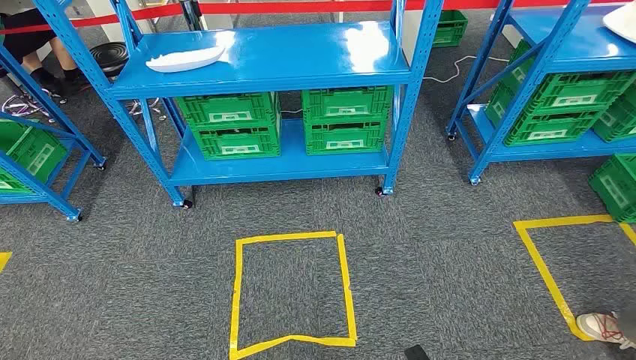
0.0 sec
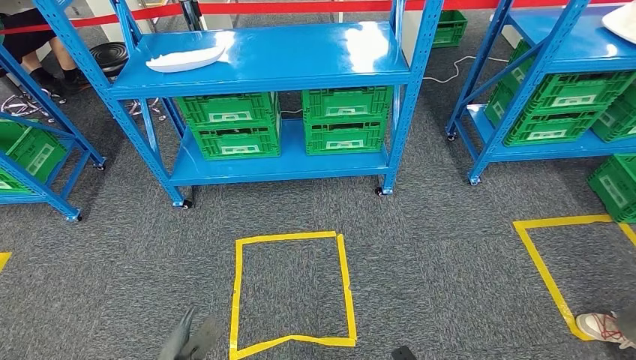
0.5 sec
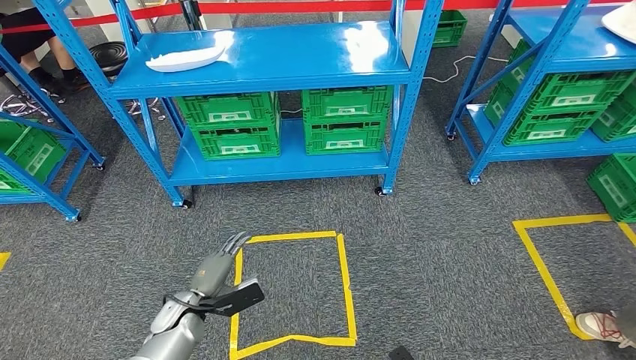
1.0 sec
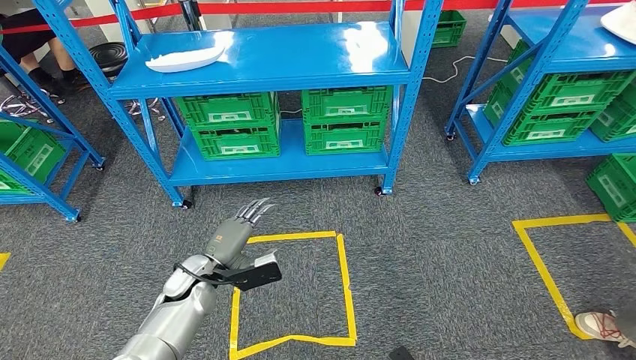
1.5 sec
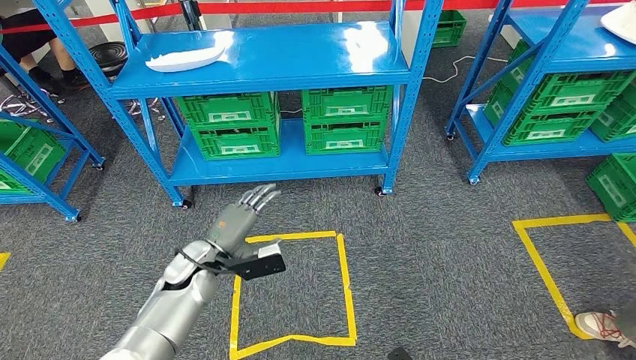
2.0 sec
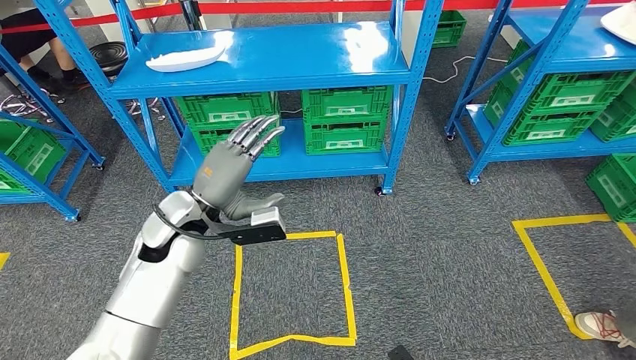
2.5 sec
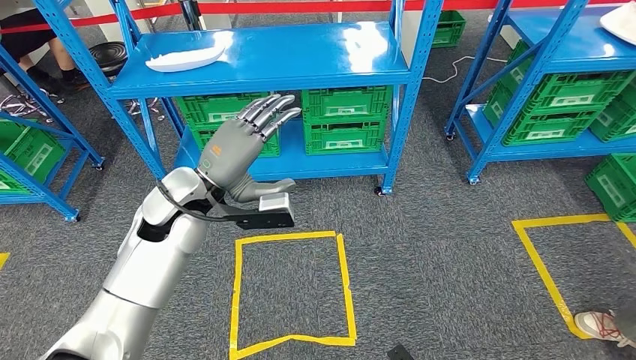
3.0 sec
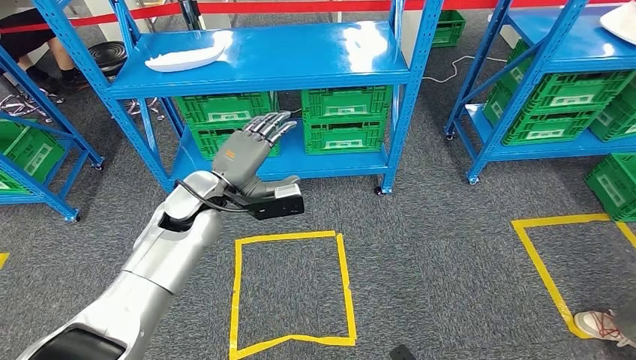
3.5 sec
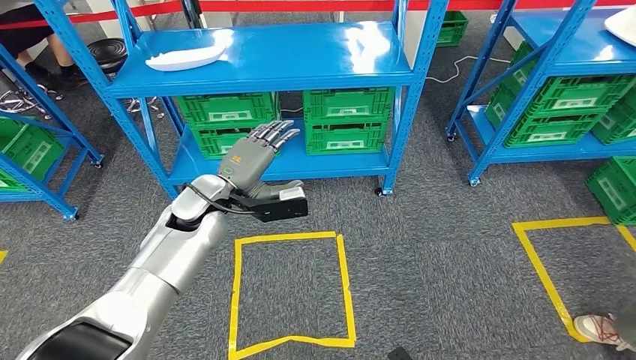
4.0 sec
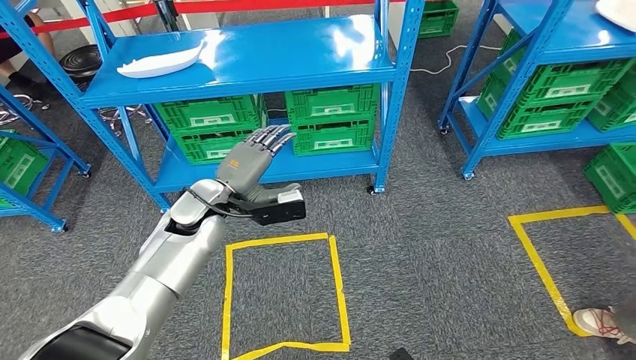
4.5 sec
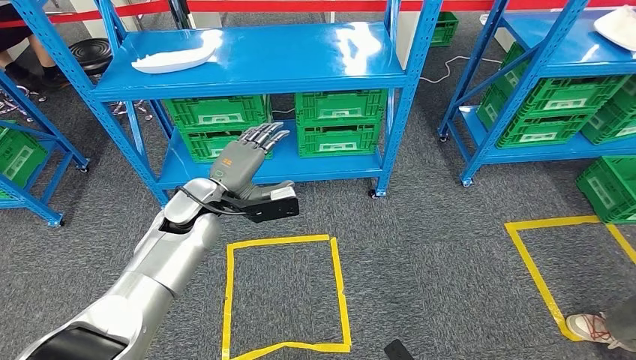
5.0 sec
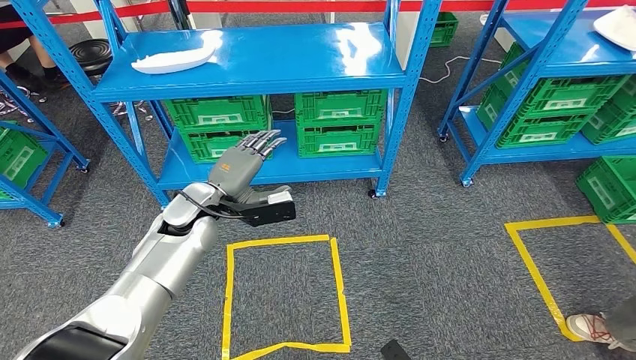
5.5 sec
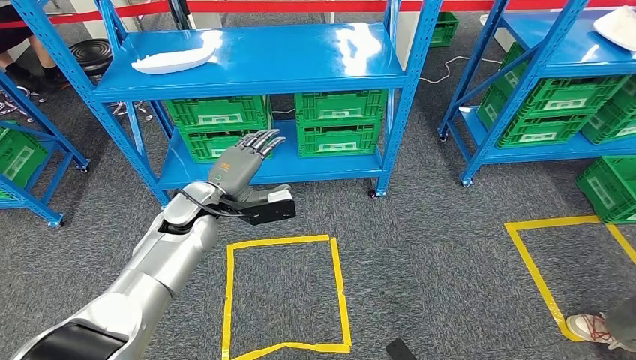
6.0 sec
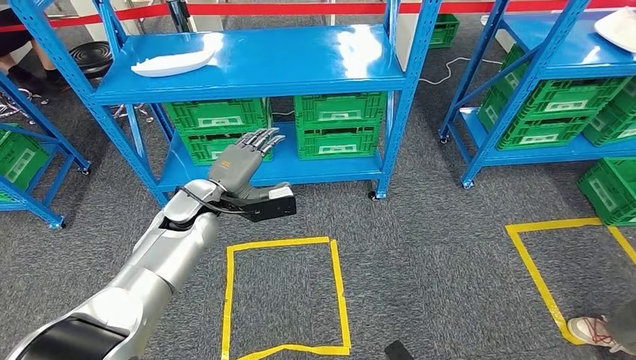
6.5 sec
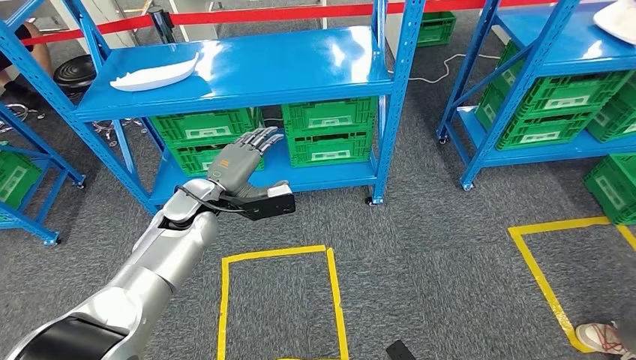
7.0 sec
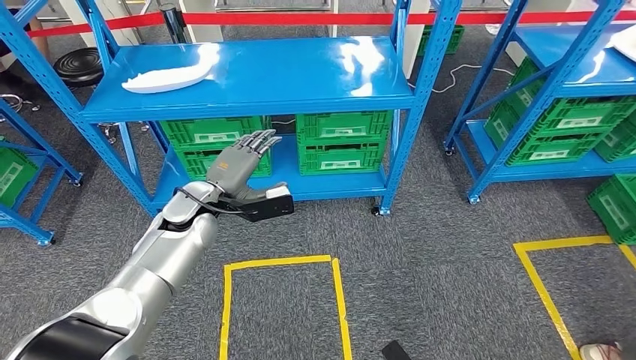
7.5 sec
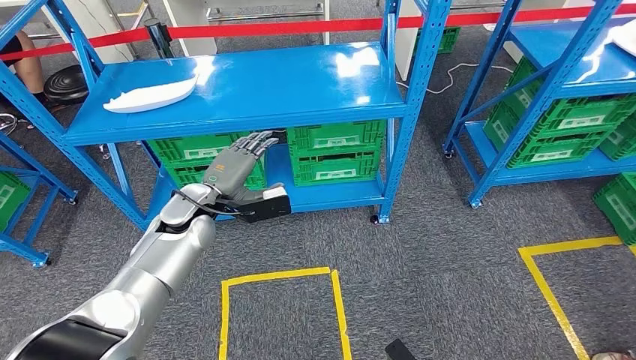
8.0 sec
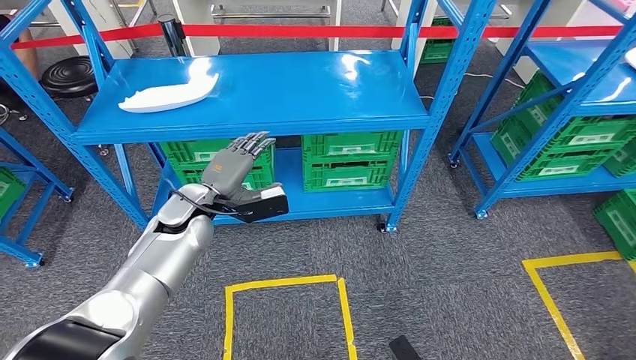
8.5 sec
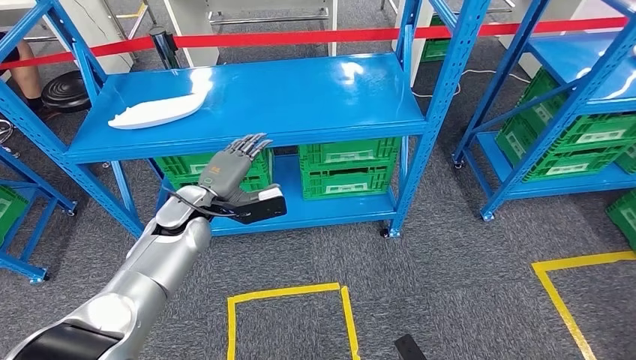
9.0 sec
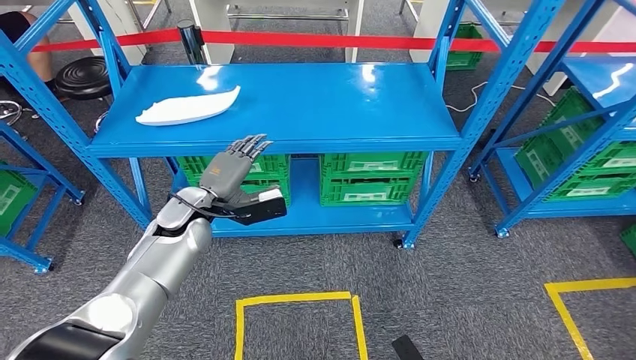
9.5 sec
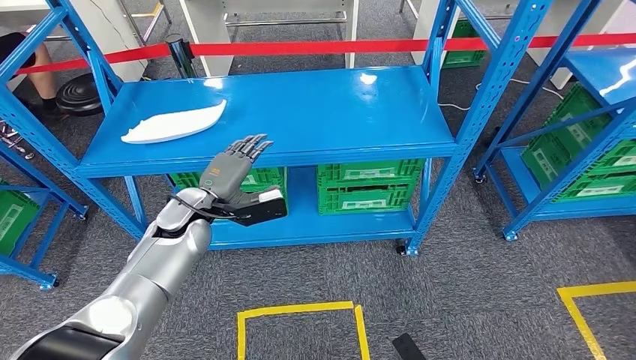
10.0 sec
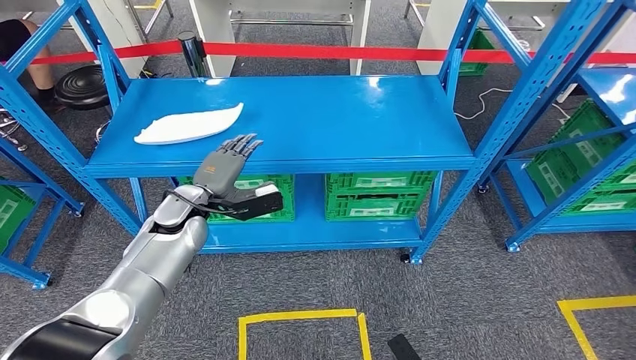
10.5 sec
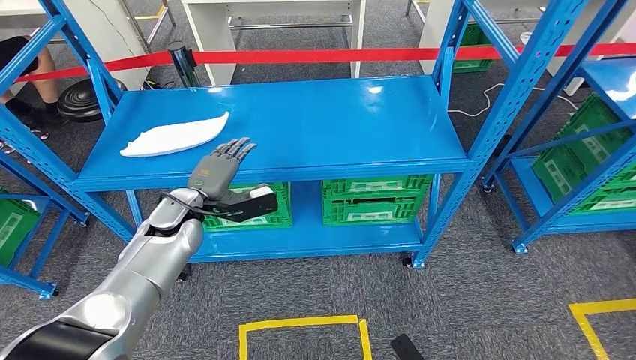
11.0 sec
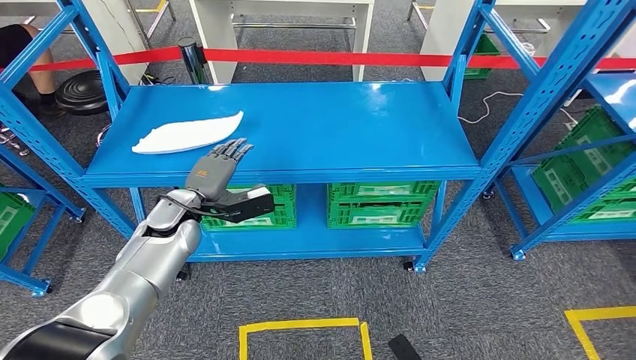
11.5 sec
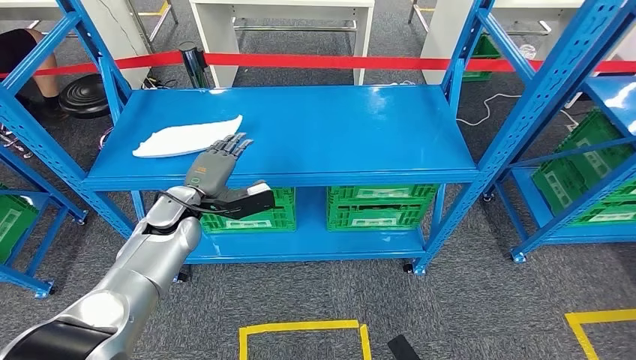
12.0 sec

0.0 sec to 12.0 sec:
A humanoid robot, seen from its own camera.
2.0 sec to 4.0 sec: The left hand goes some 10 cm upward.

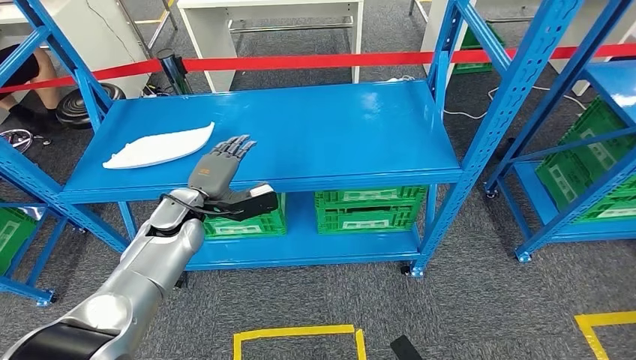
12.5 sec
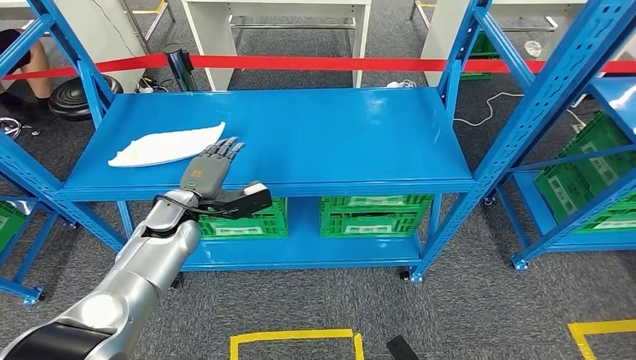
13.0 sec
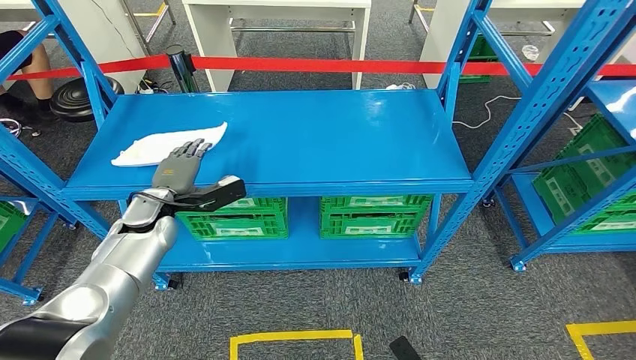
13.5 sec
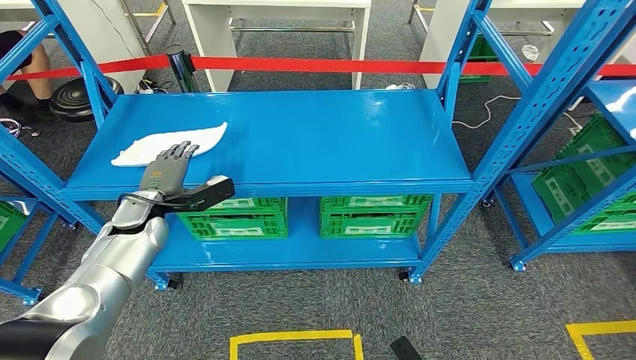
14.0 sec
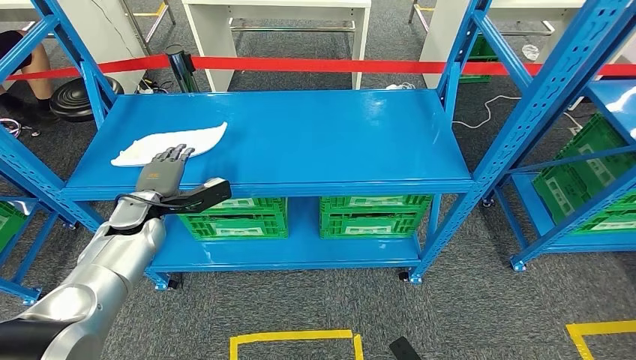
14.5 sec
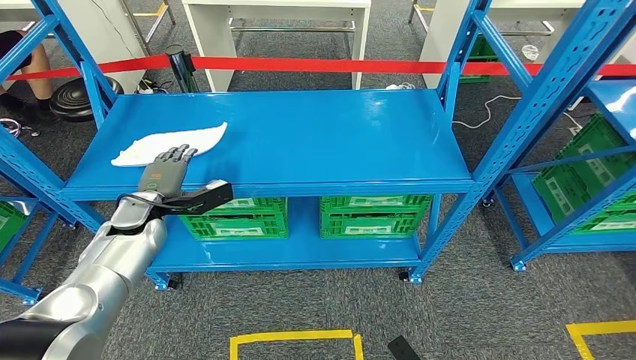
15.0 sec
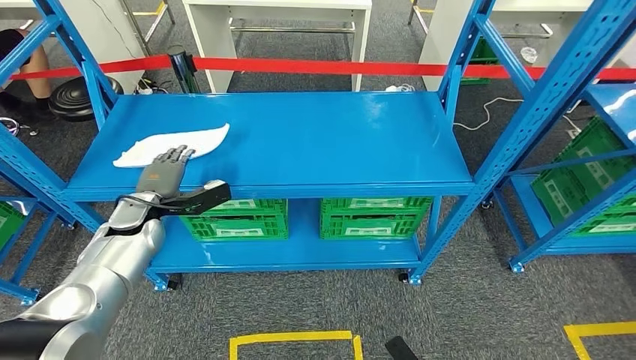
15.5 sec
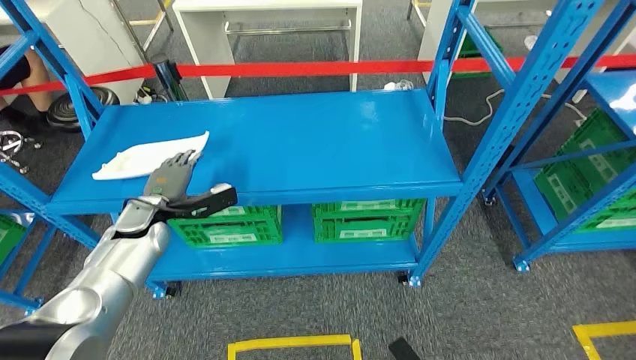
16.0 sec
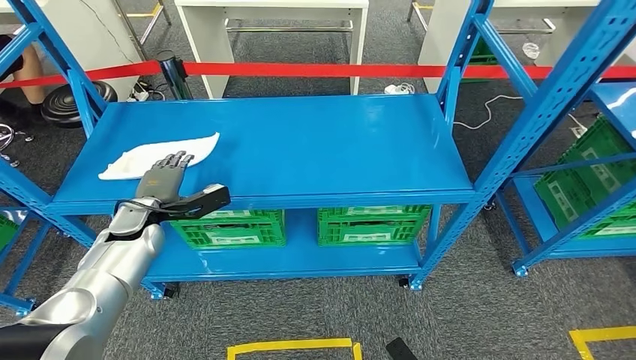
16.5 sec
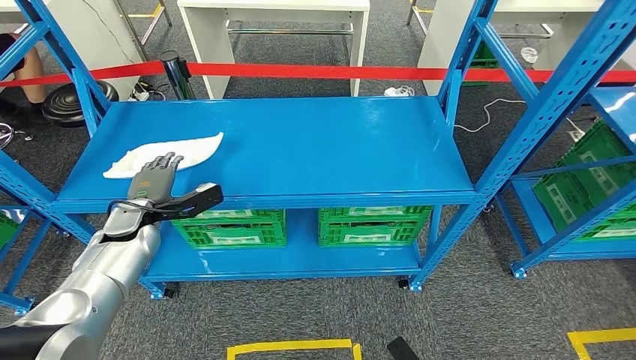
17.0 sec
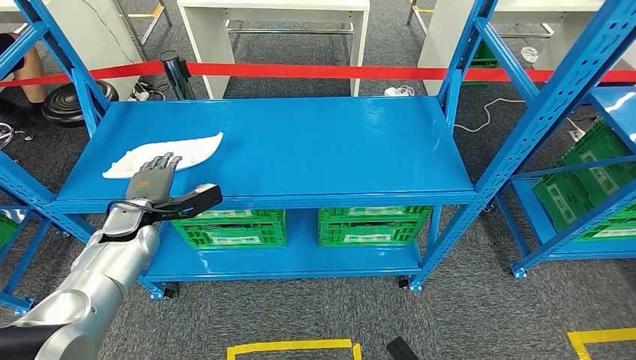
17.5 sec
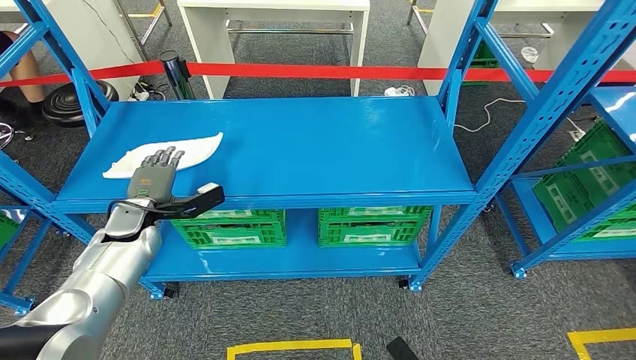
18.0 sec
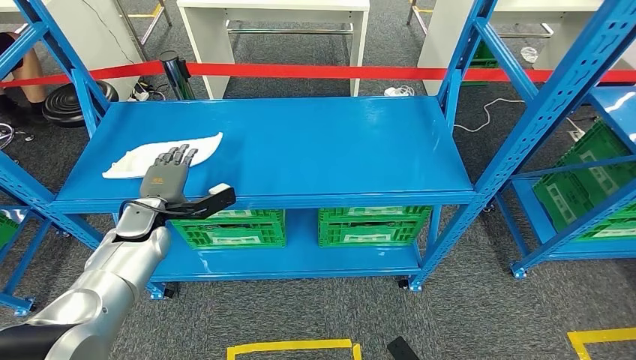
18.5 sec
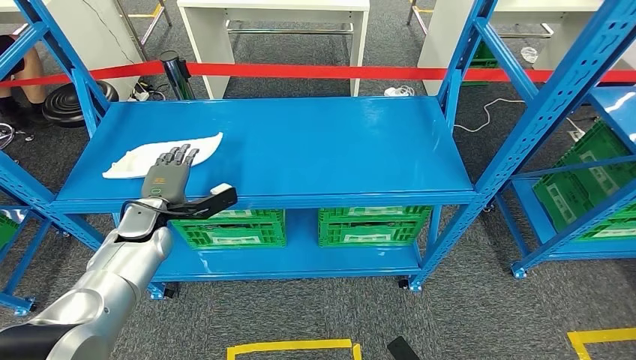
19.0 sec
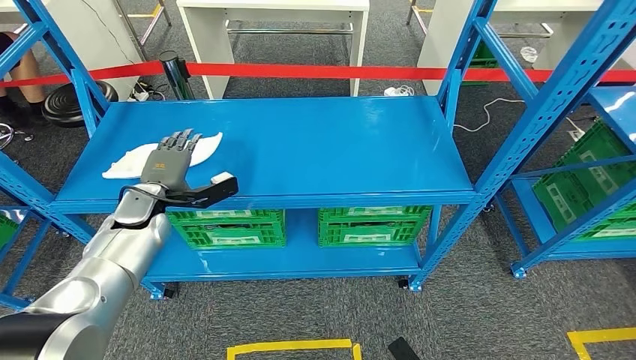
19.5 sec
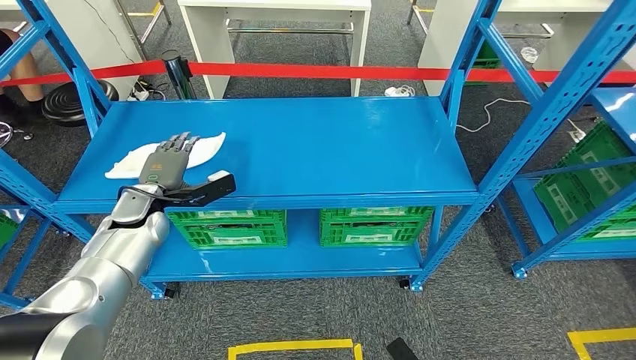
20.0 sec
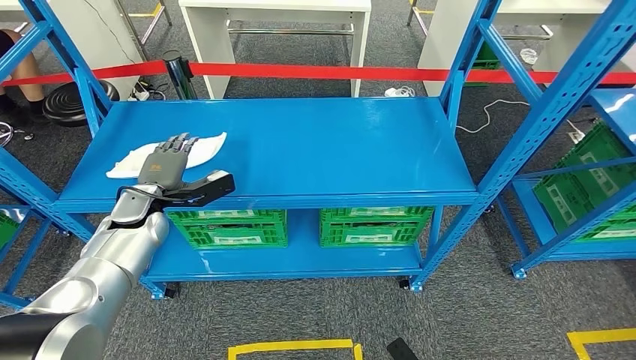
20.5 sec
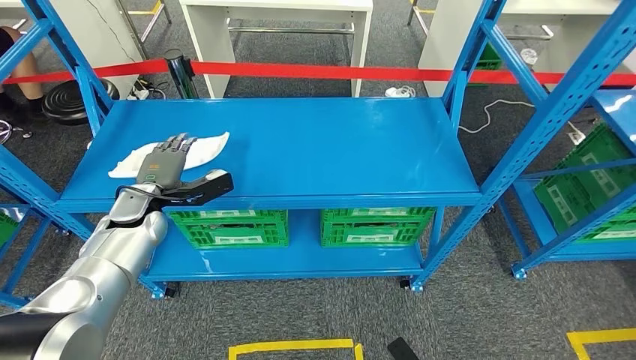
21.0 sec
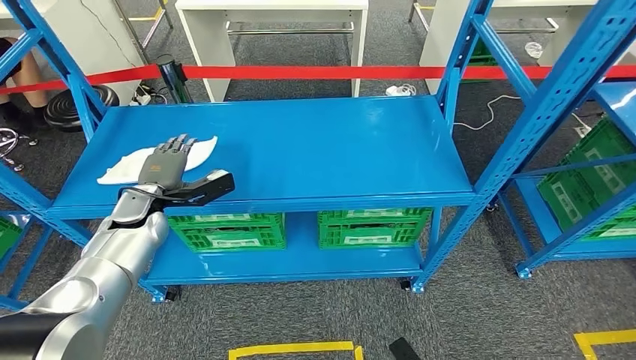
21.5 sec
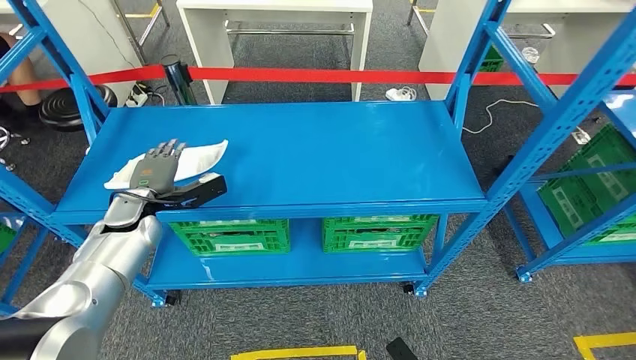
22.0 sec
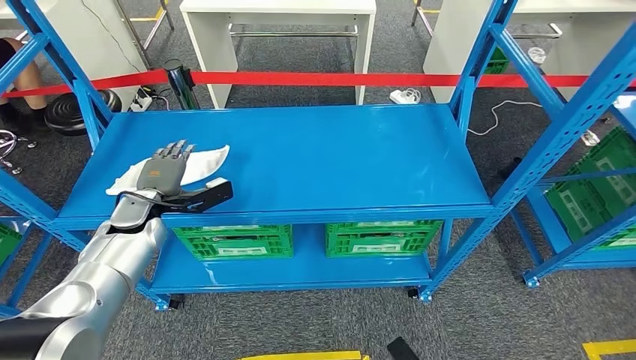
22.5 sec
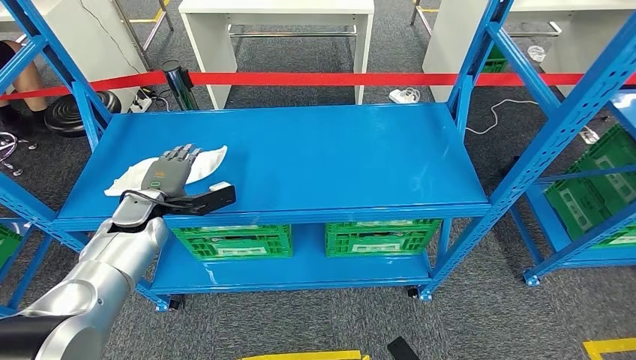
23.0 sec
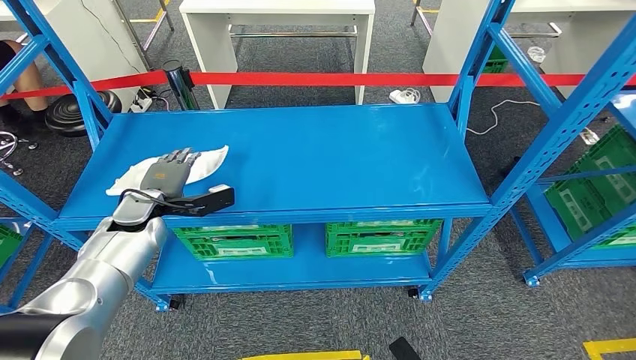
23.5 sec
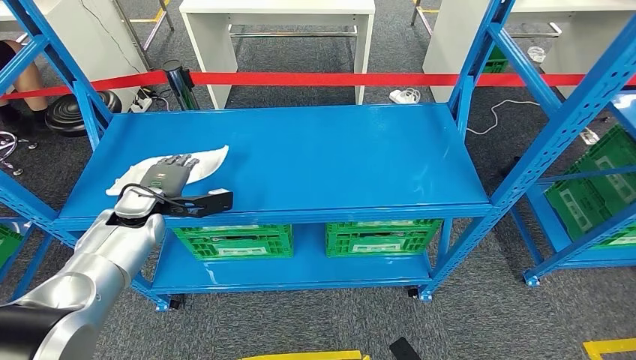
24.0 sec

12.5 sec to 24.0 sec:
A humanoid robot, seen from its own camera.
16.5 sec to 20.0 sec: There are only small adjustments of the hands.
